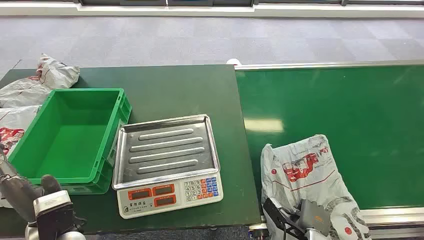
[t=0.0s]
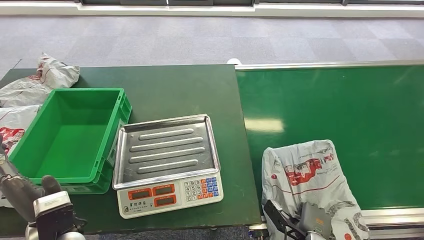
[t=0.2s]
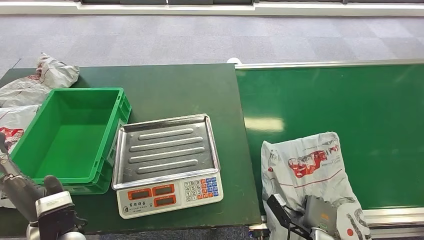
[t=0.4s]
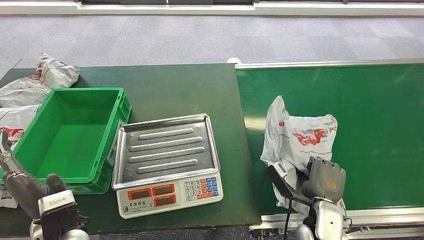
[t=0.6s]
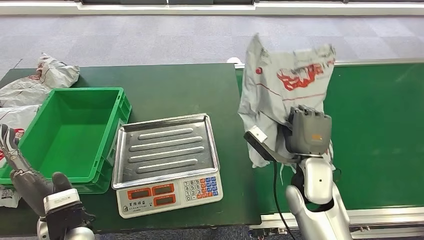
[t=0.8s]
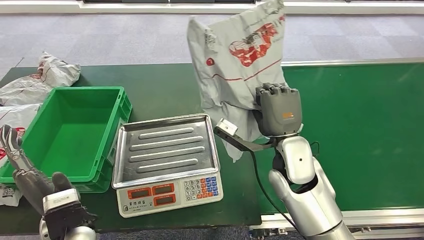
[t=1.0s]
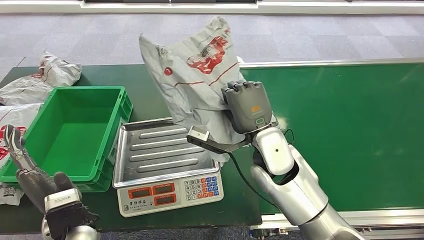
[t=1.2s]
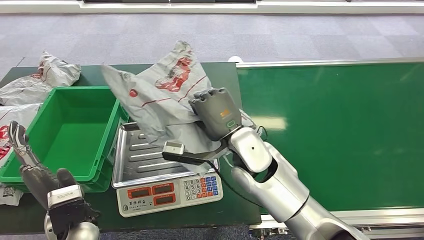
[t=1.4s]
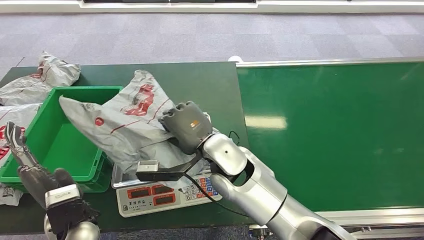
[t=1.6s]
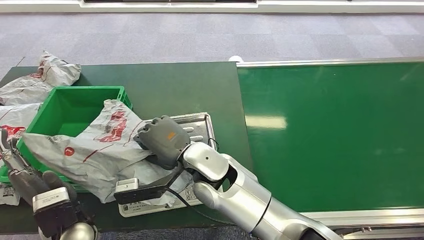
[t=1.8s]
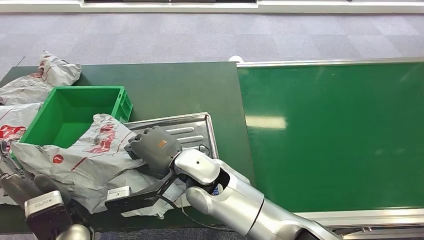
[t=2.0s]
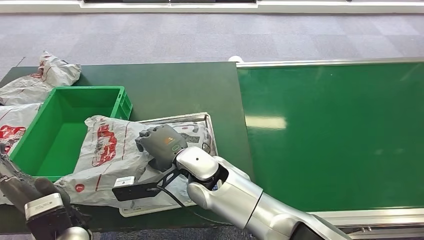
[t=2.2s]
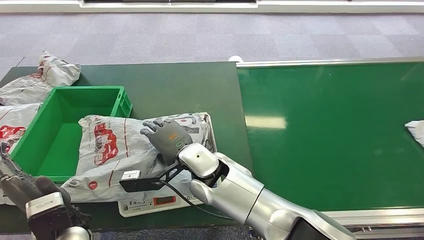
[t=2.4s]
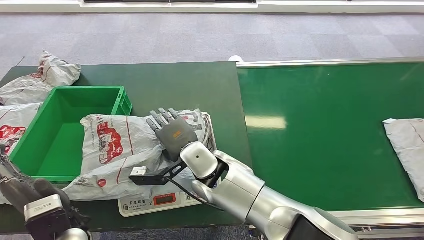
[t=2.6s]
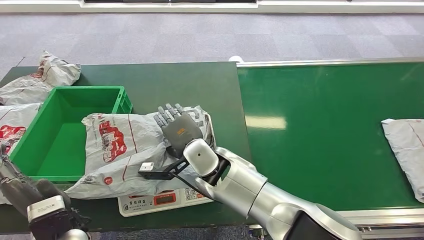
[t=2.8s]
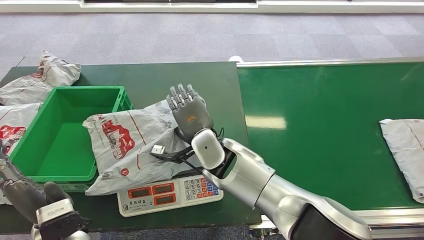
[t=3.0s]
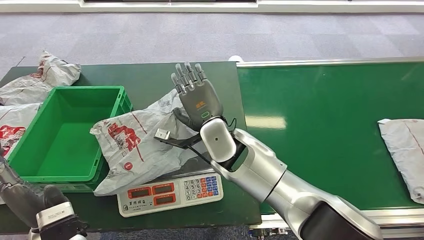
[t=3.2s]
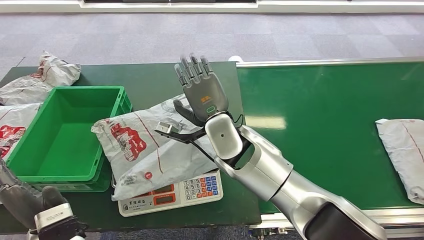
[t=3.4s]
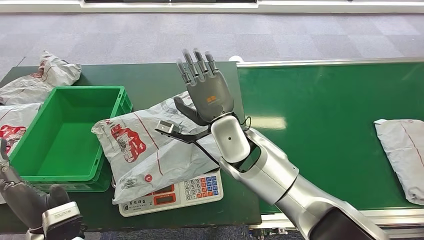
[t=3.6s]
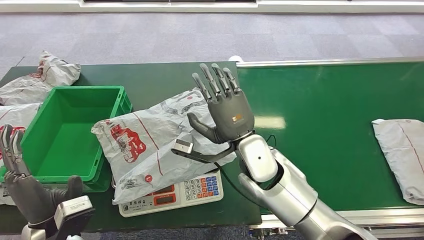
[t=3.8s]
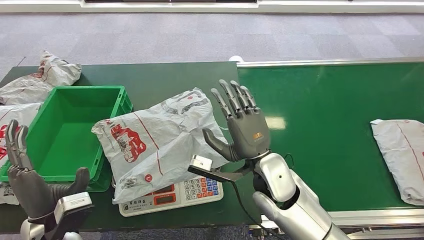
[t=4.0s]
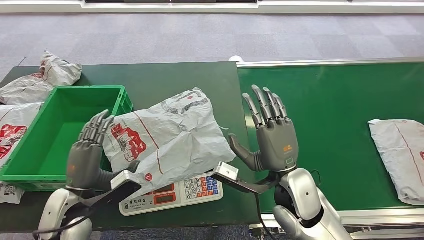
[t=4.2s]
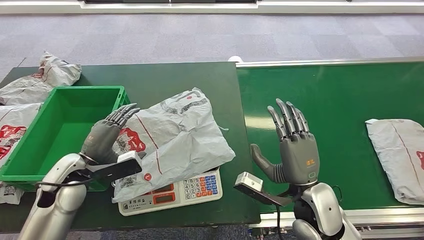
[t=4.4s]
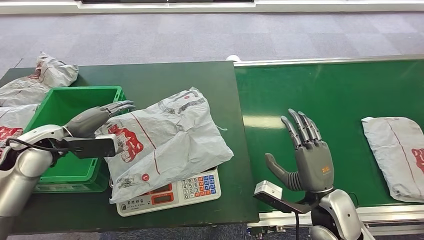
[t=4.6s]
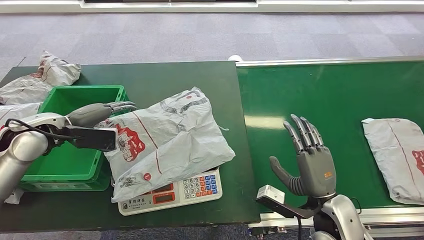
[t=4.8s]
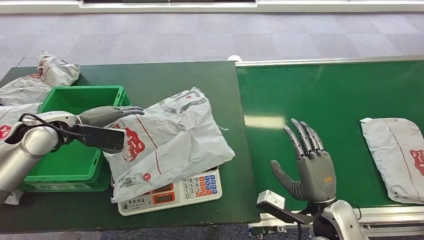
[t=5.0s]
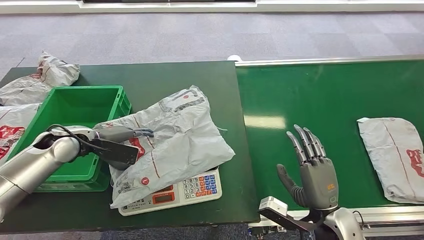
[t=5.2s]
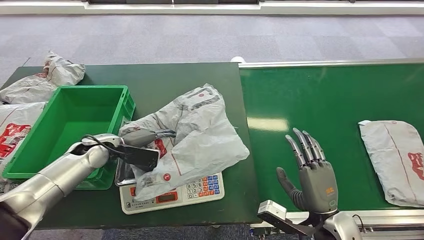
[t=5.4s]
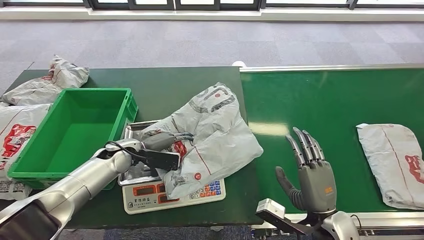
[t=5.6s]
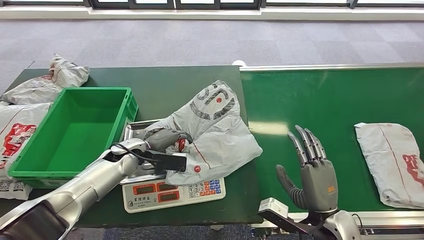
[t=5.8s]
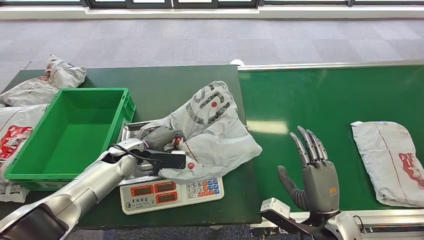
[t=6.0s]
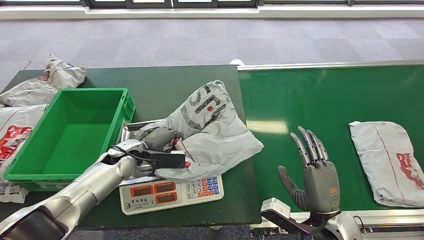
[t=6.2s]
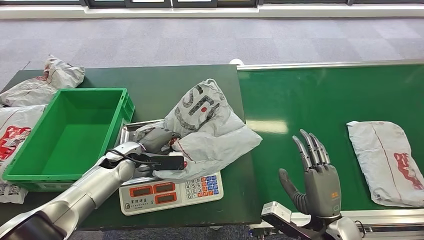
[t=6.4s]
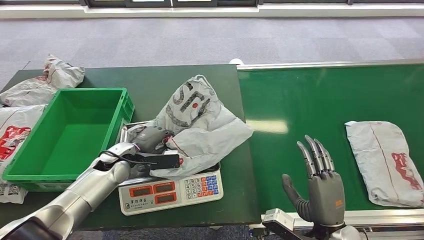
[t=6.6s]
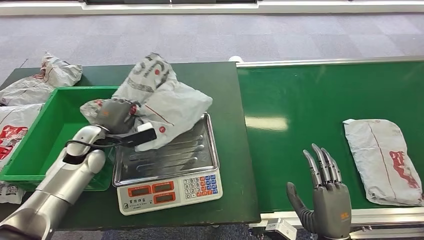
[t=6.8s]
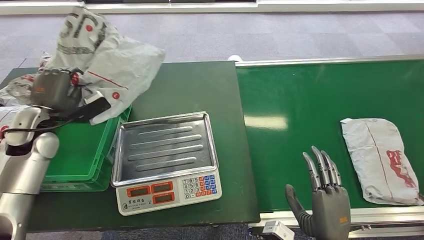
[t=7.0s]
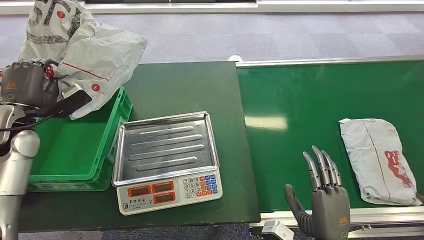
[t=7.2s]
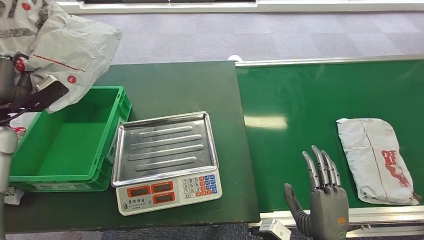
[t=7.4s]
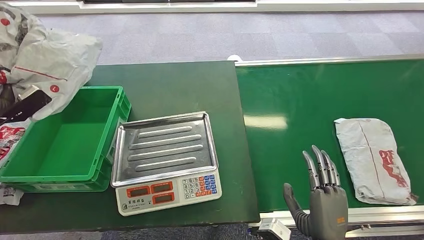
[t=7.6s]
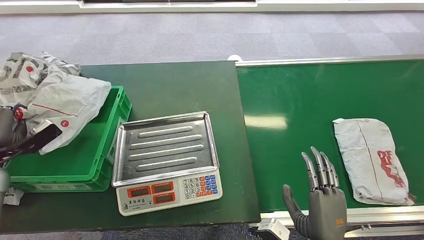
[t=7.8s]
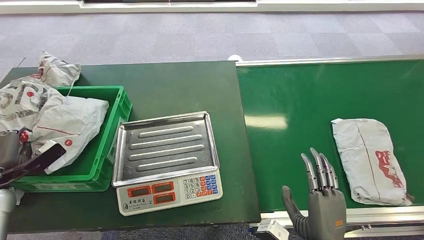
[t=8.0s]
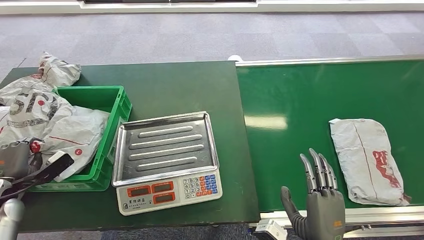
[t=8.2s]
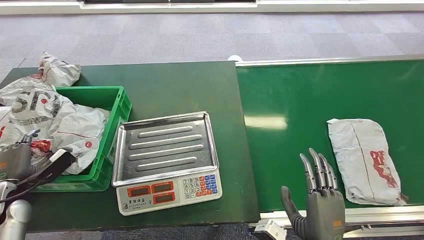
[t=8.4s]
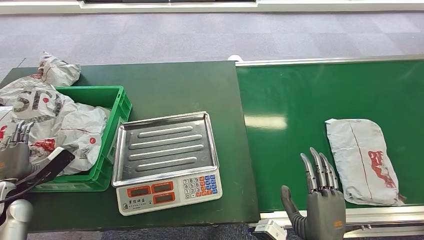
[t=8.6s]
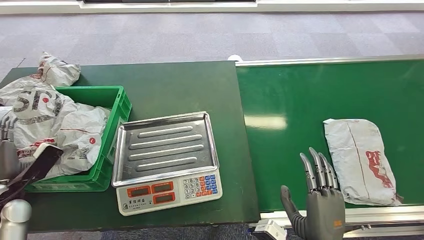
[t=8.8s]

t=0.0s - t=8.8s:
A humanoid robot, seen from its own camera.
Step, t=0.0s - t=1.0s: Pick up the package from the conveyor belt.
Step, t=1.2s - t=4.0s: Place the package onto the inbound machine.
Step, t=4.2s - t=7.2s: Pick up the package from the inbound machine.
Step, t=7.4s - t=8.8s: Place the package into the parcel locker.
